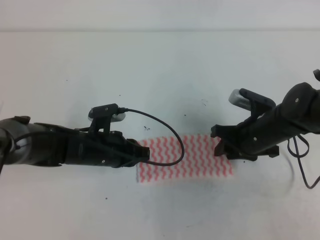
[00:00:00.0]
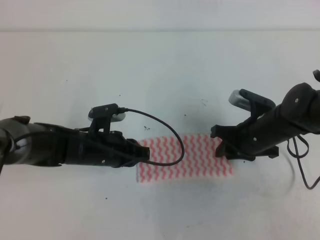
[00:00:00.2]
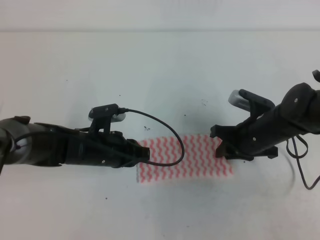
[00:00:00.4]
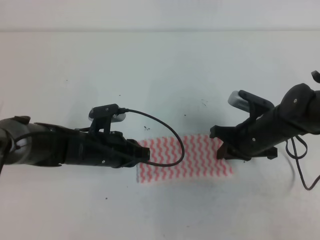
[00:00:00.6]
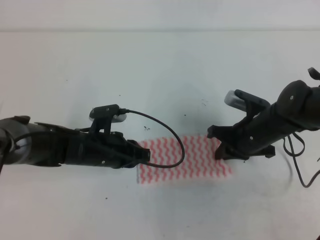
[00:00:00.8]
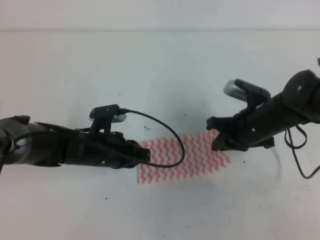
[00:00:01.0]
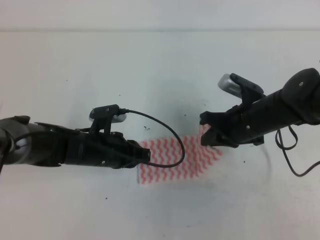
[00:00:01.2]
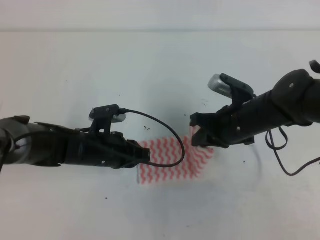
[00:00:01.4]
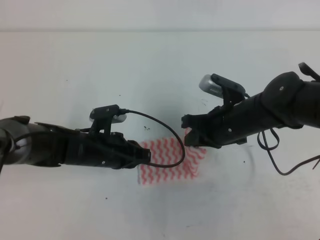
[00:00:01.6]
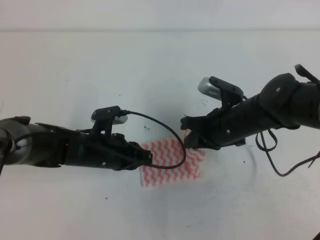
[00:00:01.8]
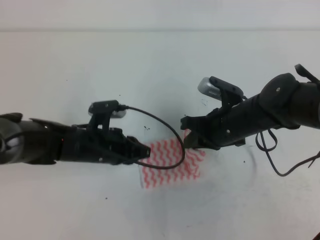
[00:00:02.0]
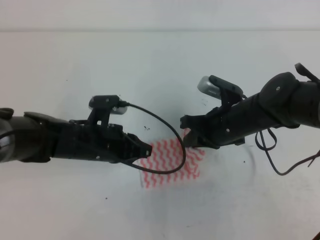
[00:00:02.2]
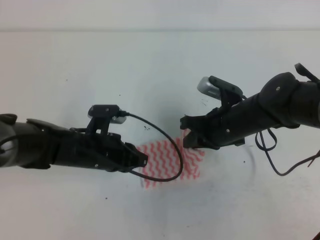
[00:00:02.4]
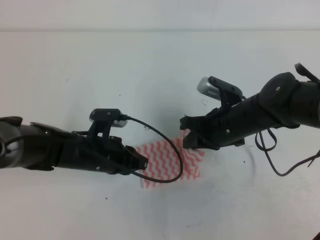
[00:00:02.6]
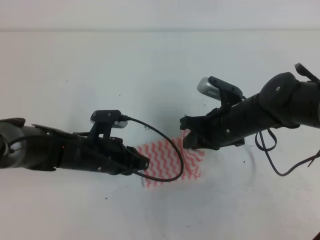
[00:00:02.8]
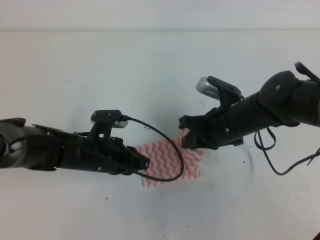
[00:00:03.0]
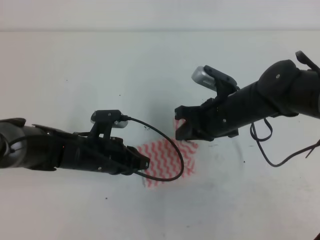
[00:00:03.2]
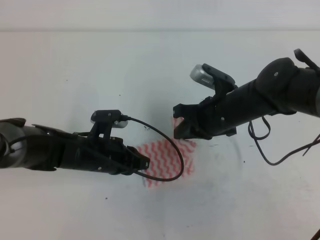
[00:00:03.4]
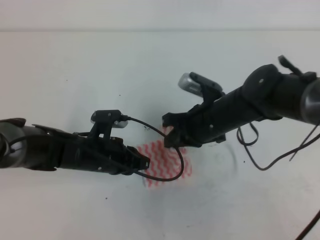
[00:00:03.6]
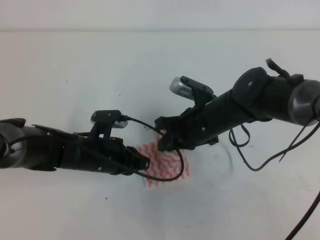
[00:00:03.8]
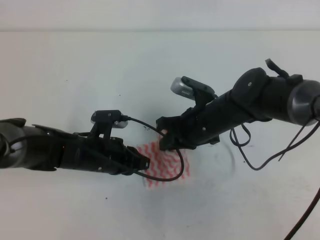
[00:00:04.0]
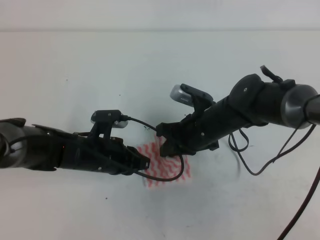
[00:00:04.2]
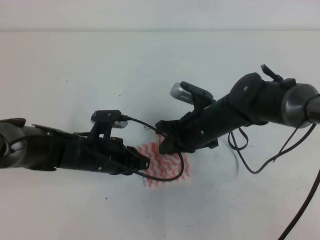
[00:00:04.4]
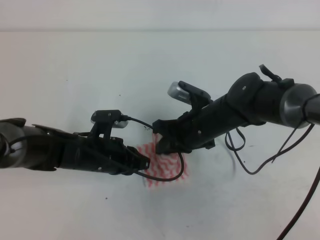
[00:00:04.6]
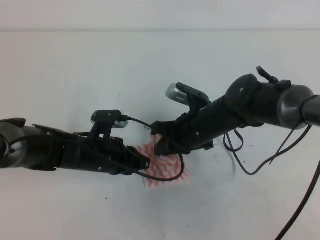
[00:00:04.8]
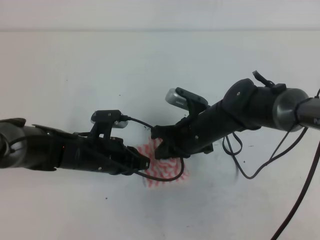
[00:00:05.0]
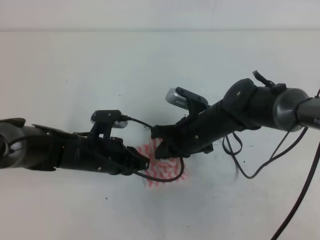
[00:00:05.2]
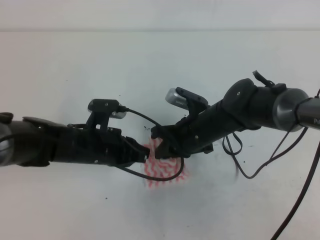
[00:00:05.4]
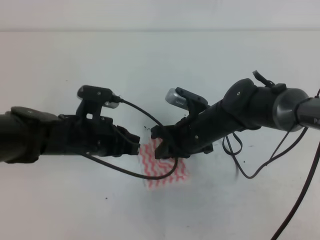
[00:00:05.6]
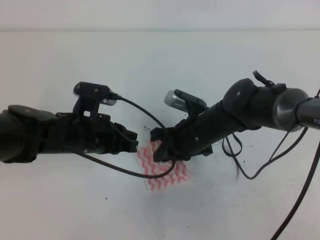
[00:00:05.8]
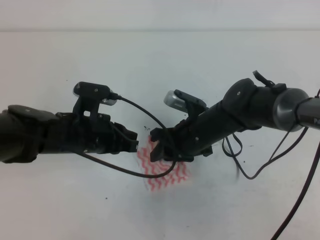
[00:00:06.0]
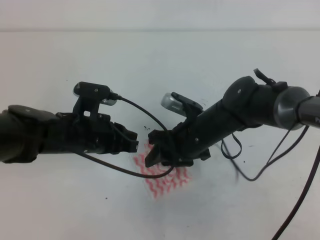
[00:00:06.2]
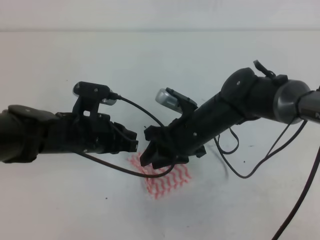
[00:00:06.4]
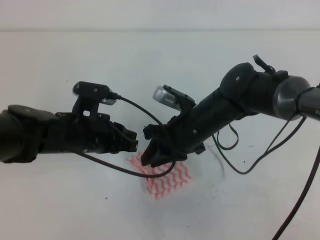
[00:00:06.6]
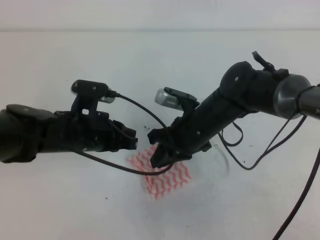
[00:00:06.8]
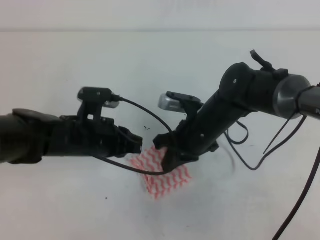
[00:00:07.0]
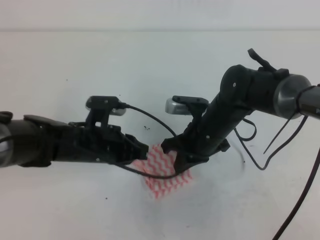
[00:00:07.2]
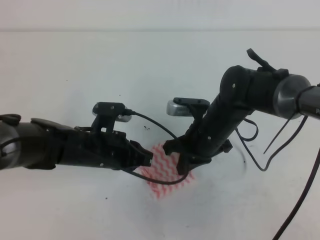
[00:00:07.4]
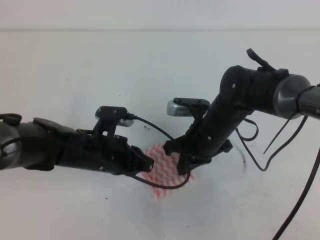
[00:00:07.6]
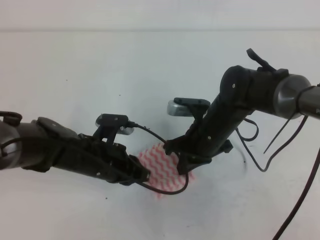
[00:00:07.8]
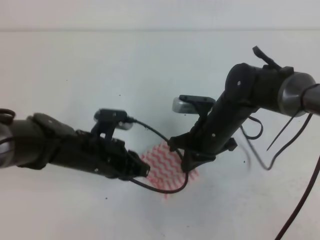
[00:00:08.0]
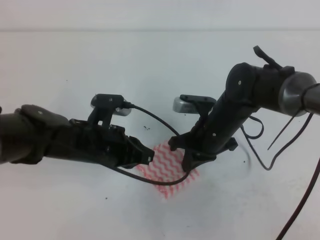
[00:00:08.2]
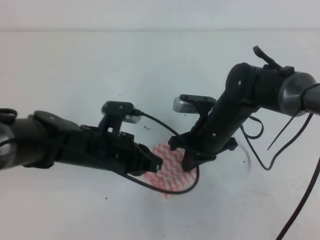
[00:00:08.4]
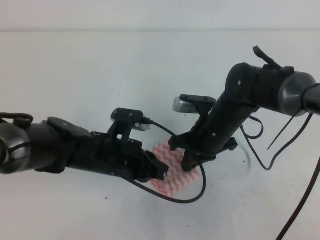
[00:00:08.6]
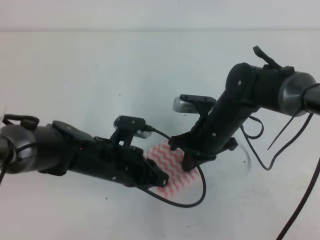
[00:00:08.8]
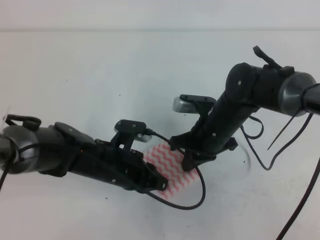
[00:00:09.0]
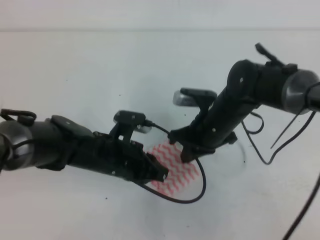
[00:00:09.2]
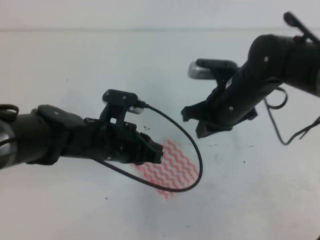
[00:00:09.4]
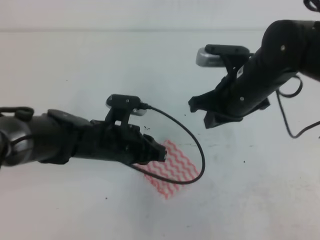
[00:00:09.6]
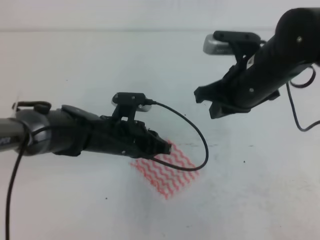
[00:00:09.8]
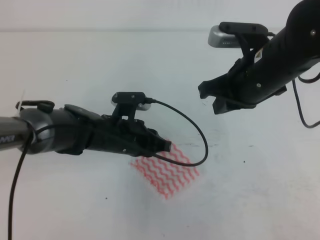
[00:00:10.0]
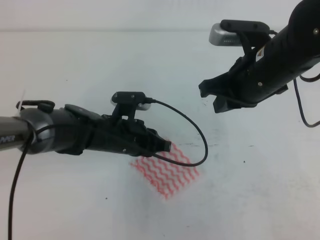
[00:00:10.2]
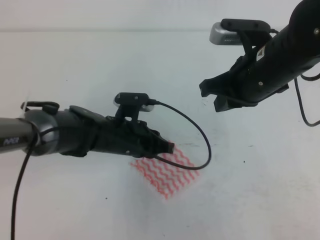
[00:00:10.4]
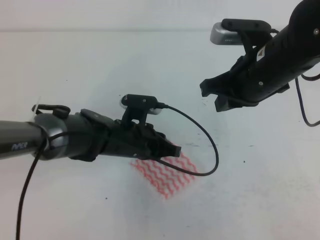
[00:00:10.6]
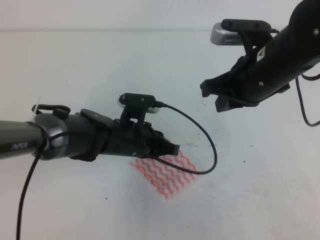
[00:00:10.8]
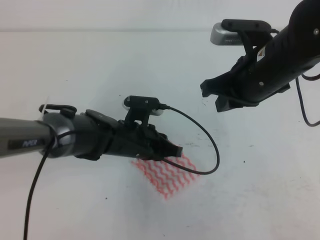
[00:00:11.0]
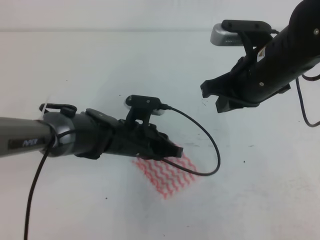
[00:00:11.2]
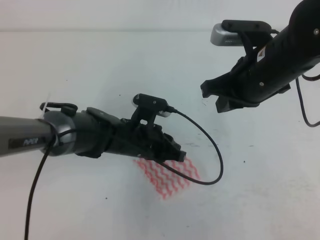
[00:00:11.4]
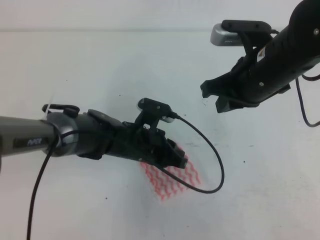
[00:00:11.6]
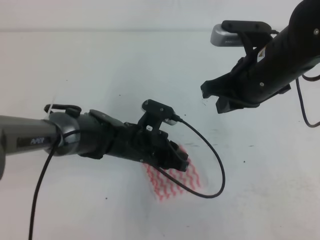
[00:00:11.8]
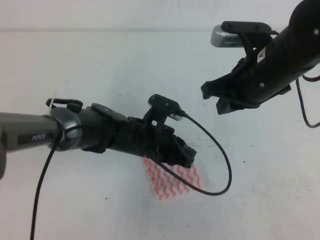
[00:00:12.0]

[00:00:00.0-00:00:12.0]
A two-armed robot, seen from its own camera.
00:00:00.0 to 00:00:01.6: The right gripper ends up about 5 cm from where it was, and closes up.
00:00:01.6 to 00:00:04.4: The grippers stay close to where they were, moving slightly.
00:00:04.4 to 00:00:06.0: The left gripper travels upward by roughly 5 cm; the right gripper opens up.
00:00:06.0 to 00:00:07.6: The right gripper closes.
00:00:07.6 to 00:00:09.0: The grippers move only a little.
00:00:09.0 to 00:00:10.4: The left gripper ends up approximately 5 cm from where it was. Meanwhile the right gripper shifts roughly 15 cm upward.
00:00:10.4 to 00:00:12.0: The grippers stay close to where they were, moving slightly.

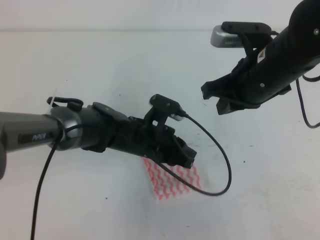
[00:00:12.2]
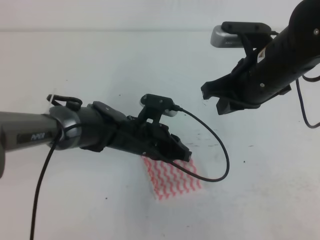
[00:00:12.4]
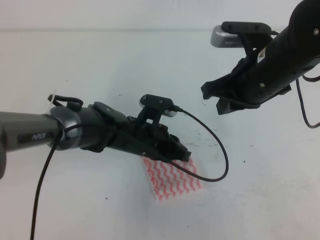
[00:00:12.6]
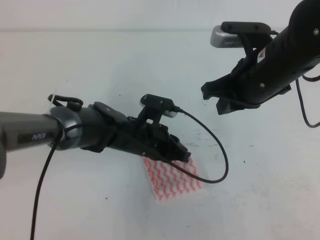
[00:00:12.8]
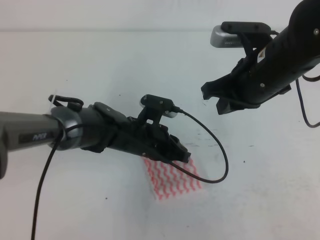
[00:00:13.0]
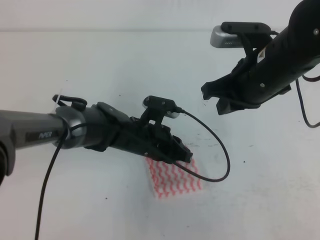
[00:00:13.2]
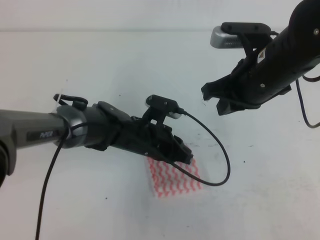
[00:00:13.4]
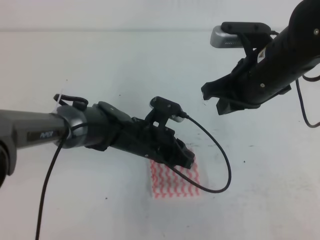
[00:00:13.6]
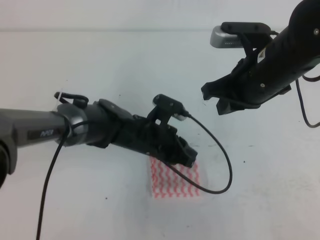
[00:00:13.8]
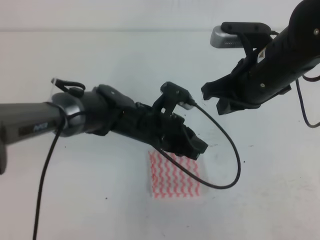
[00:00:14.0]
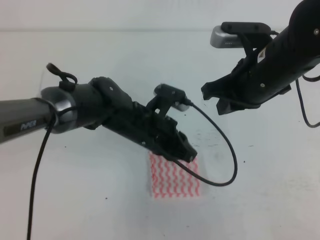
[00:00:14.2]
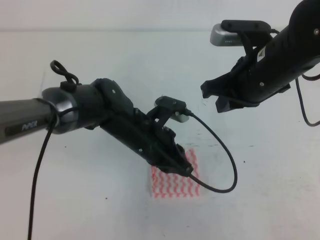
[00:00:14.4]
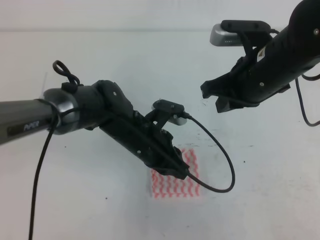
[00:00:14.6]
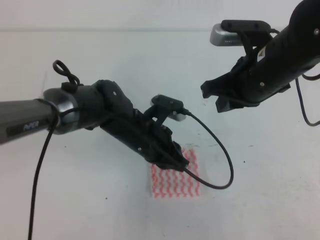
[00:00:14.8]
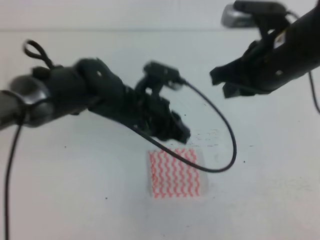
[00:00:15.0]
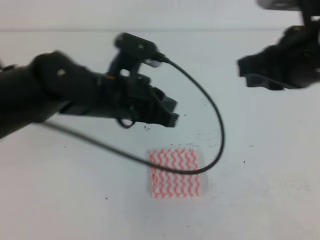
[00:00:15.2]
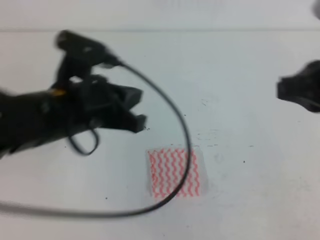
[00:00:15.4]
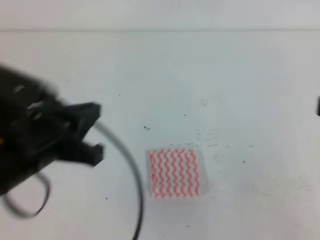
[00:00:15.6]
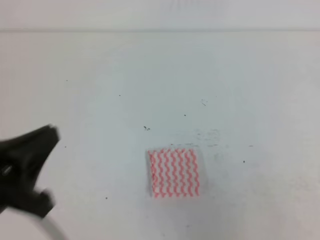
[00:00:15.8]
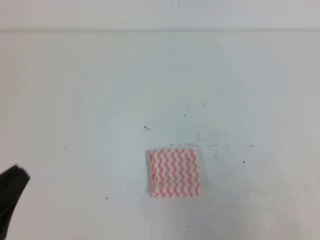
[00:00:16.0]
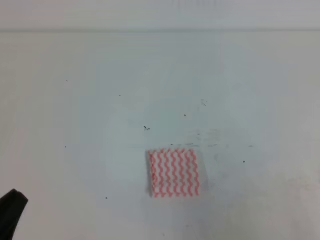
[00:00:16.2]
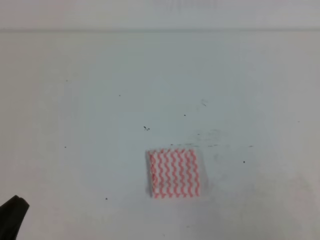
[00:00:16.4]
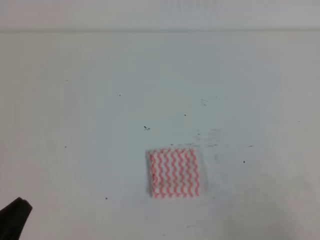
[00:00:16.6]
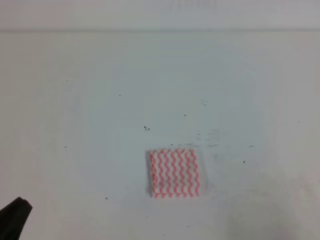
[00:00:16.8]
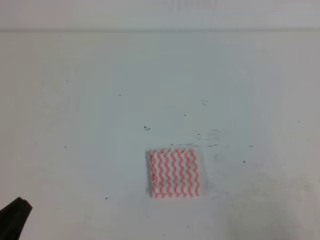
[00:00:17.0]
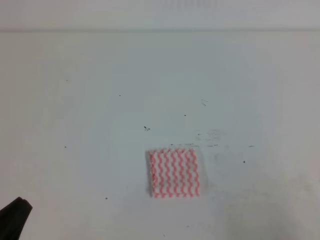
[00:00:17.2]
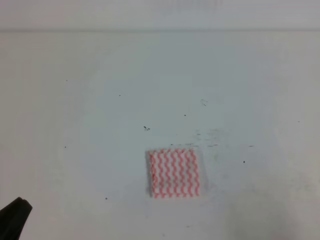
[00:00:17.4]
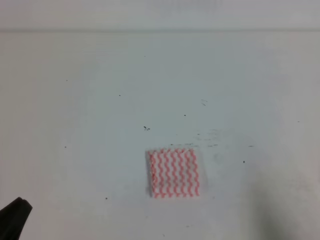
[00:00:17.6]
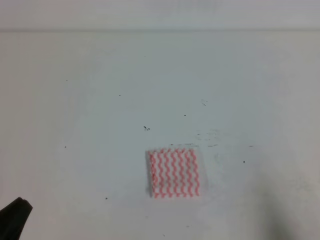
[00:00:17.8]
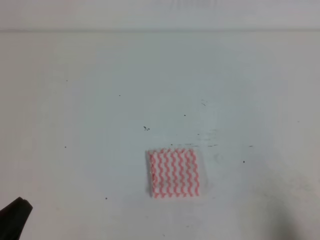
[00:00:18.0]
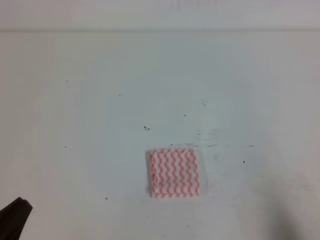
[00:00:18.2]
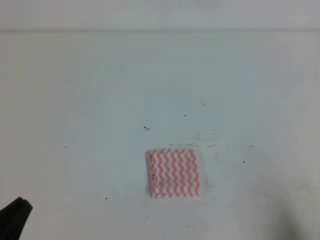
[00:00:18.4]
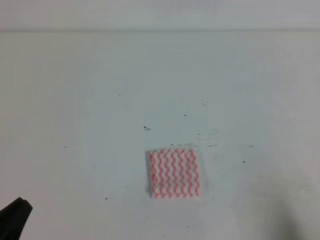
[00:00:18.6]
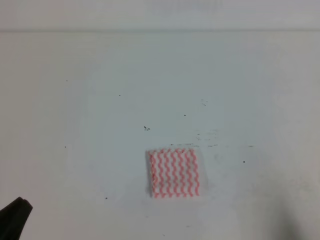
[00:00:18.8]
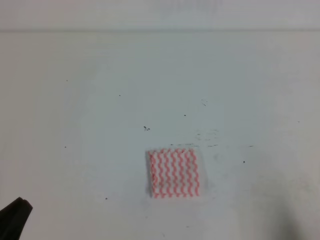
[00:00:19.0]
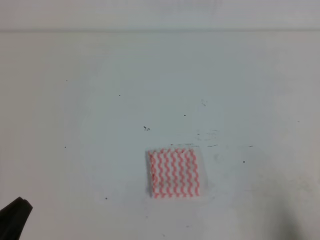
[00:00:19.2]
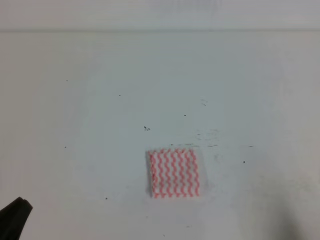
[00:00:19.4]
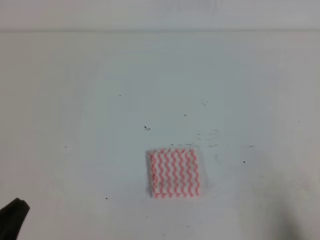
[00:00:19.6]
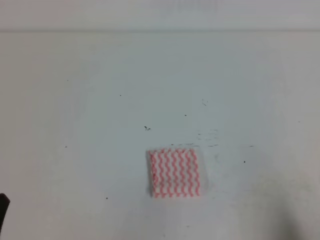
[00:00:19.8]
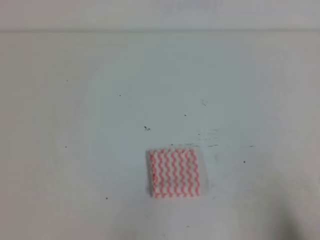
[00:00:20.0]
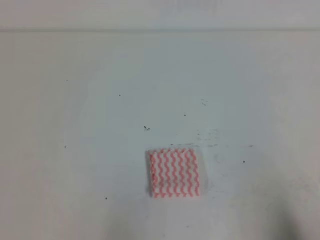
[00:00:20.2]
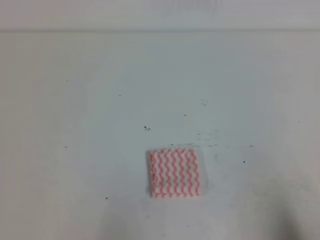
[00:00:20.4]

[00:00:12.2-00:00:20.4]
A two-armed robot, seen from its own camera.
Step, 00:00:12.2 to 00:00:20.4: Fold the towel.
00:00:12.2 to 00:00:13.8: The grippers stay close to where they were, moving slightly.
00:00:13.8 to 00:00:15.4: The left gripper is displaced upward, to the left and backward by approximately 20 cm, while the right gripper travels backward, upward and to the right by approximately 15 cm.
00:00:15.4 to 00:00:17.2: The right gripper shifts roughly 25 cm downward, backward and to the right; the left gripper heads backward, to the left and downward, covering approximately 25 cm.
